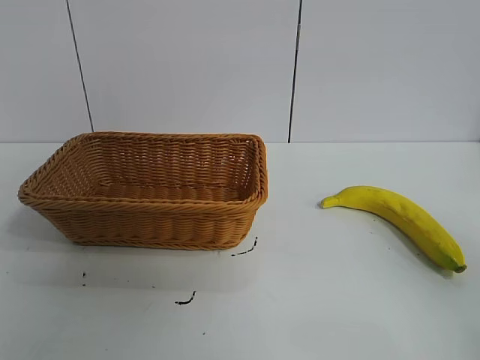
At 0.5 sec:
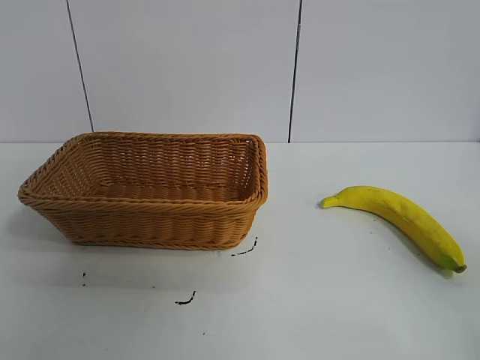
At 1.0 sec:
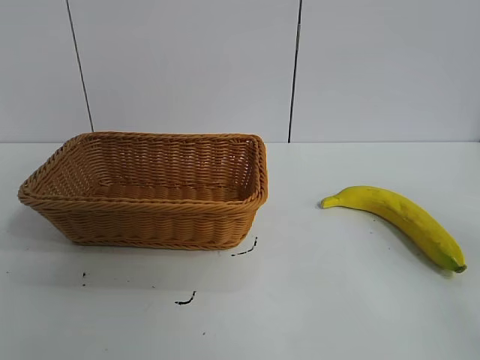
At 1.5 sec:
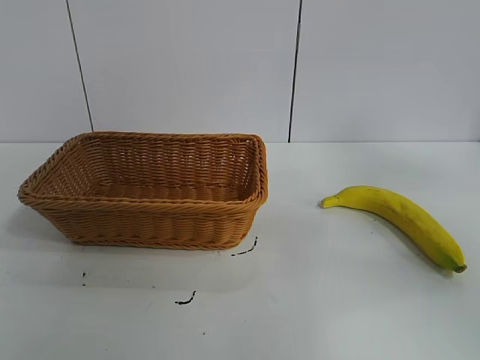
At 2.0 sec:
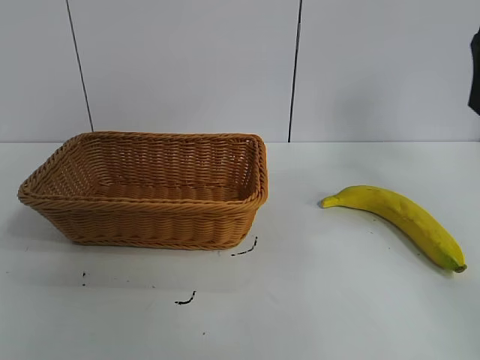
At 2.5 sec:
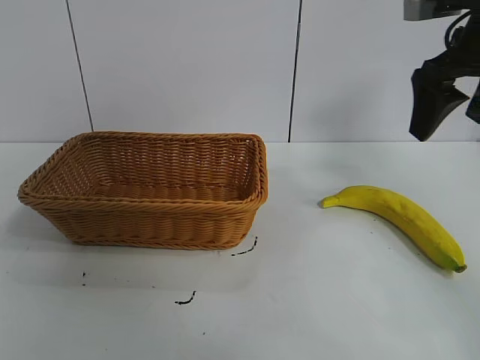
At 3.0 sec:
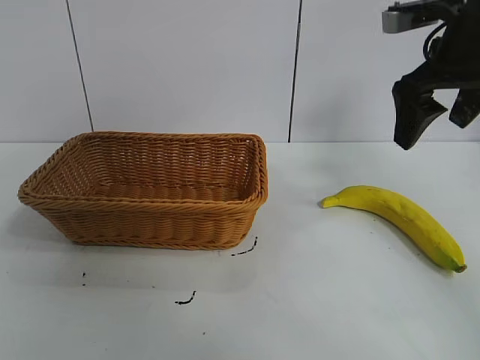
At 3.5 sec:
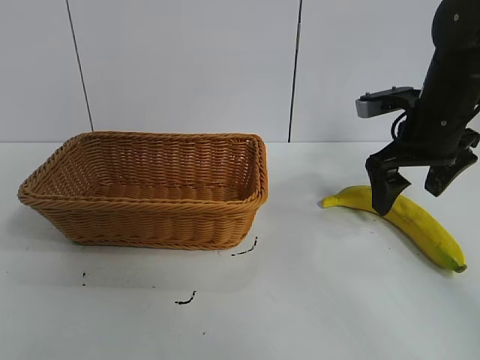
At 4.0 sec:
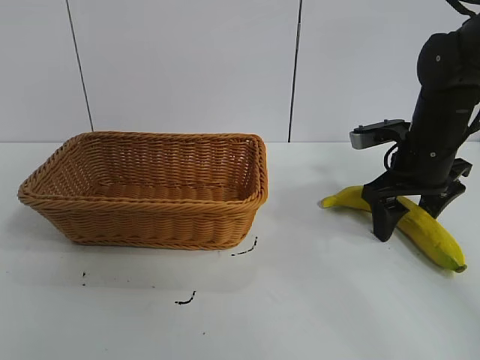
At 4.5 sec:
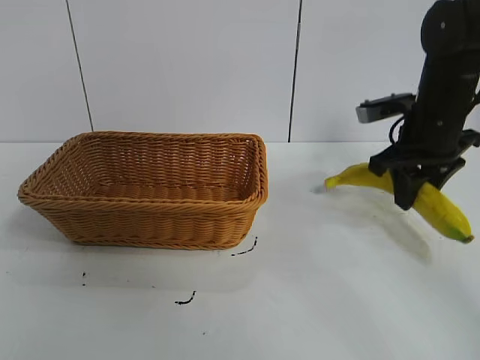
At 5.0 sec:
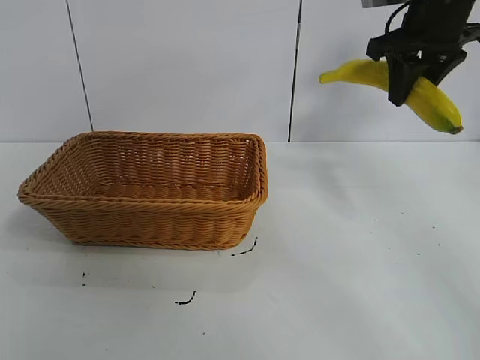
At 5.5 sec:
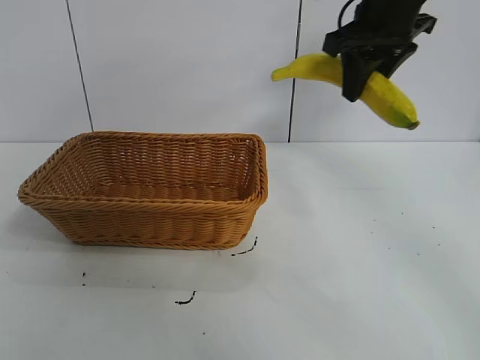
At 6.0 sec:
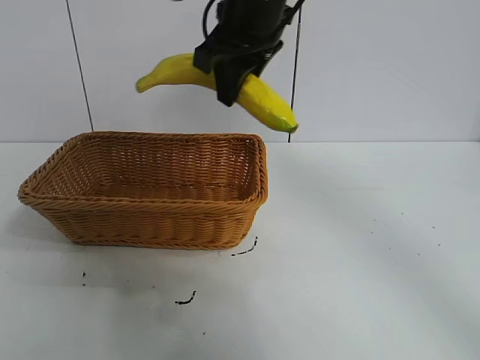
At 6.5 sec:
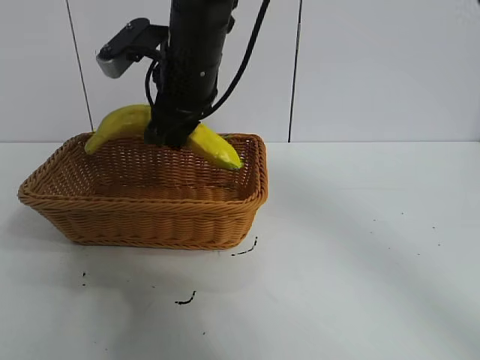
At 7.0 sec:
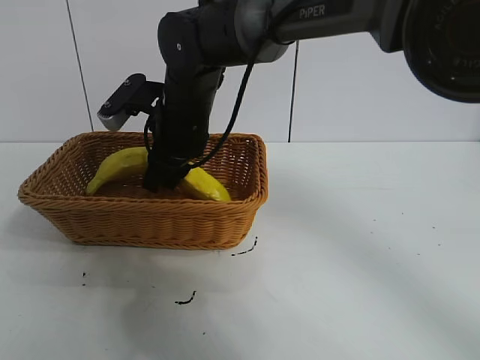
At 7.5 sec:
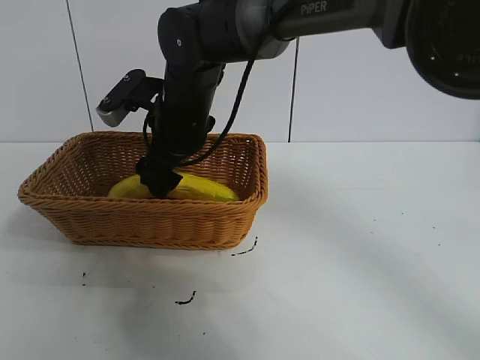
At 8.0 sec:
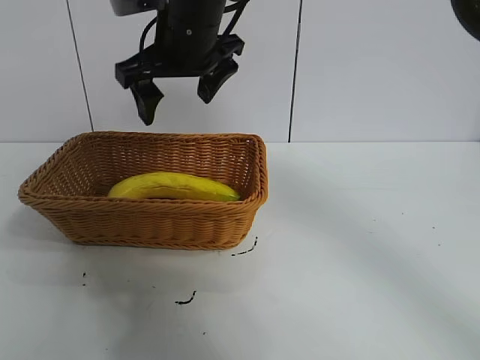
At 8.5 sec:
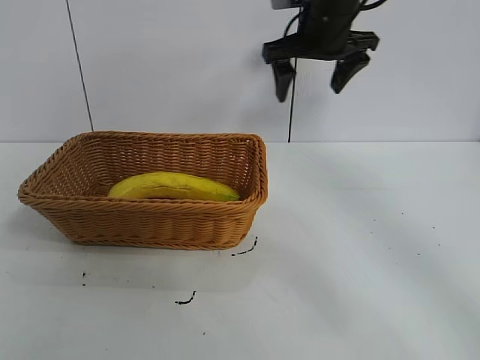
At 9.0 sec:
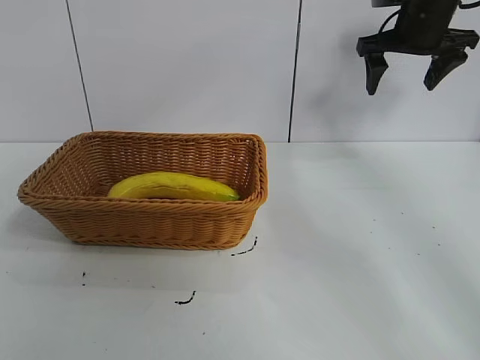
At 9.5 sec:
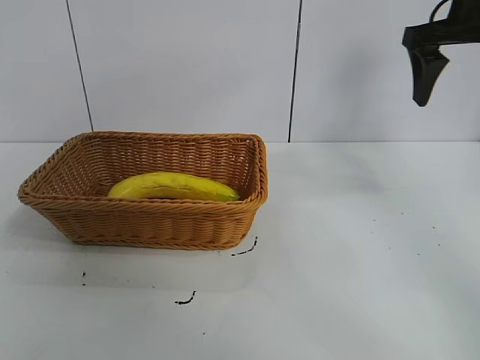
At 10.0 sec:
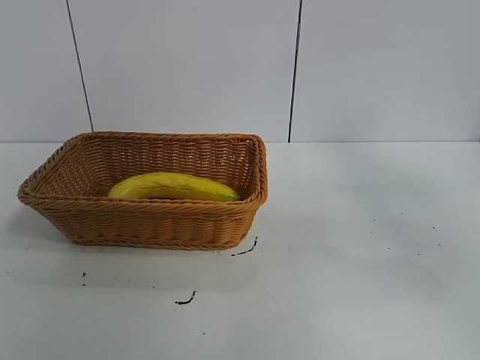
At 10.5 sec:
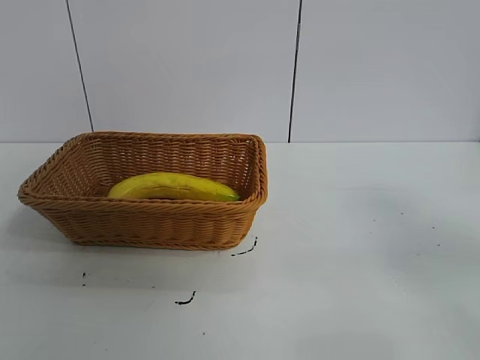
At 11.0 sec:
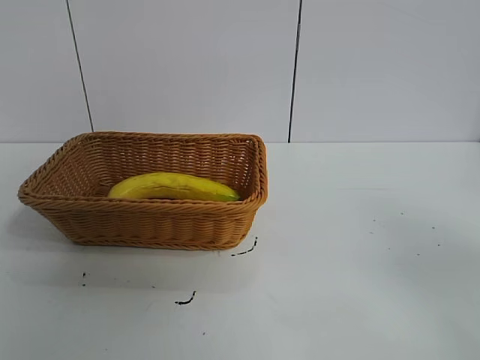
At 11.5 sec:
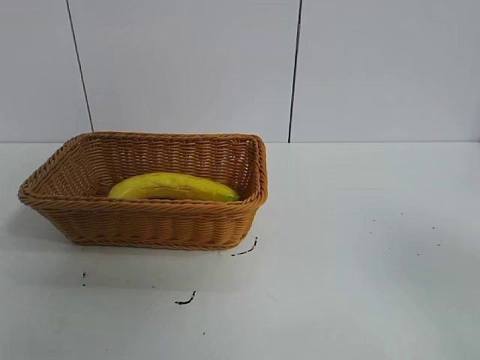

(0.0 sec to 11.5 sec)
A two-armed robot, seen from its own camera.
Task of the whole recording: pick up the banana and put it into the basket.
Step, 1.0 sec - 4.0 sec: Grasp the banana with right gripper.
Step, 4.5 sec - 7.0 sec: Place the banana in the basket with right gripper.
